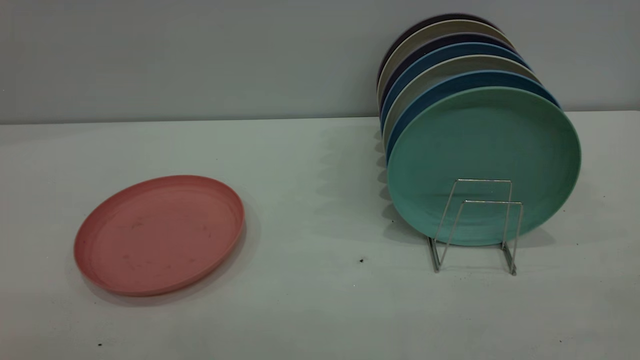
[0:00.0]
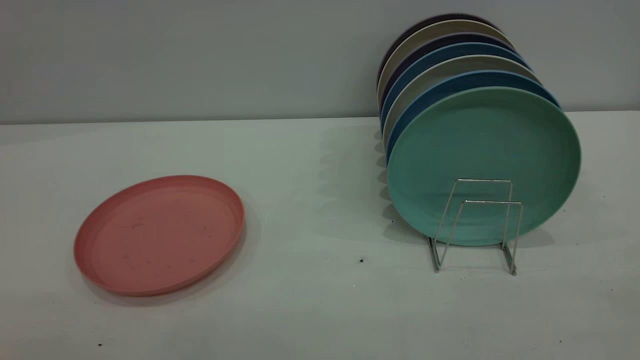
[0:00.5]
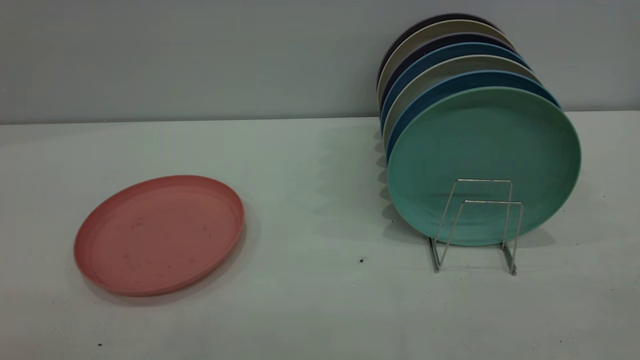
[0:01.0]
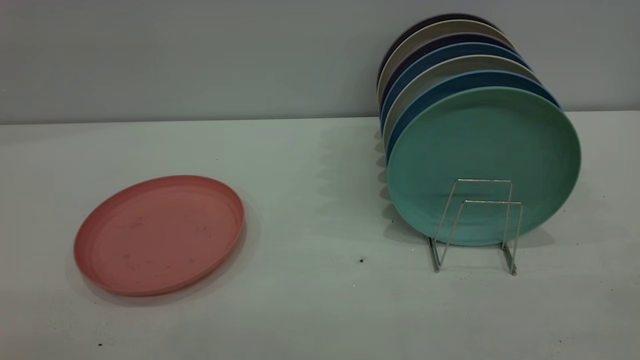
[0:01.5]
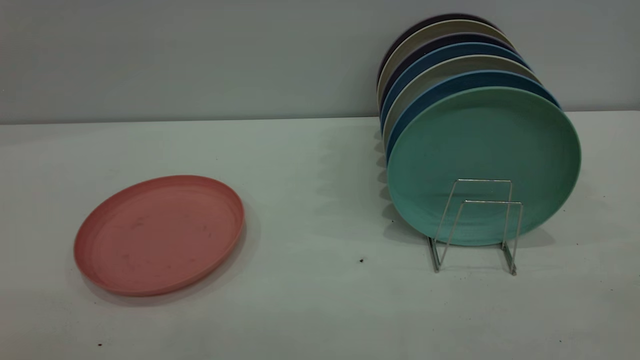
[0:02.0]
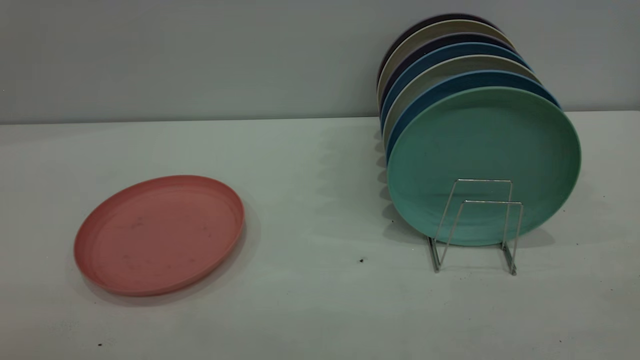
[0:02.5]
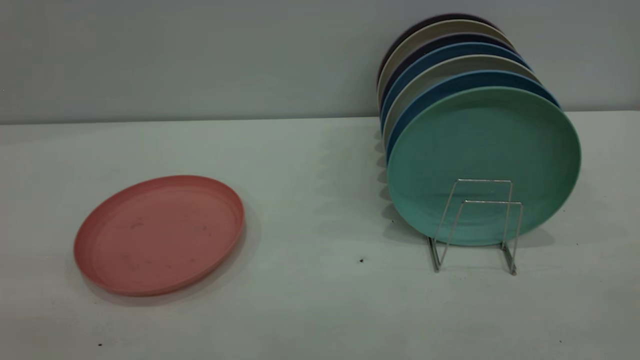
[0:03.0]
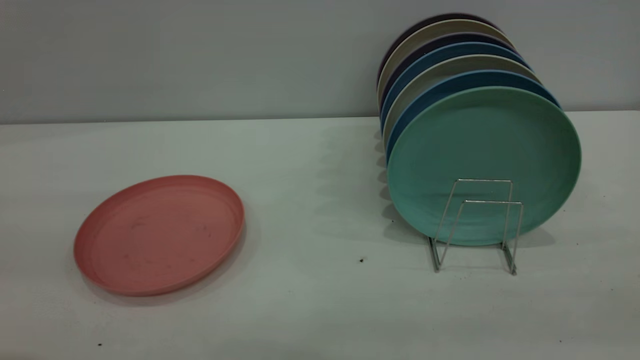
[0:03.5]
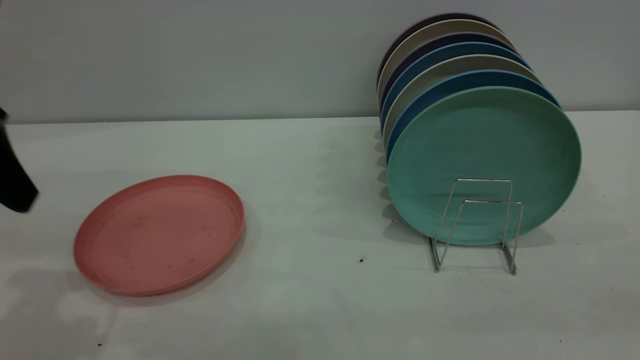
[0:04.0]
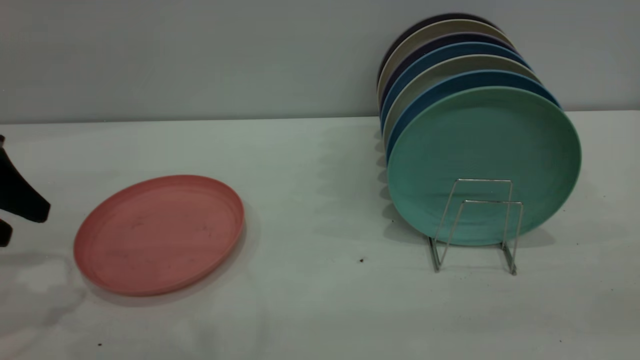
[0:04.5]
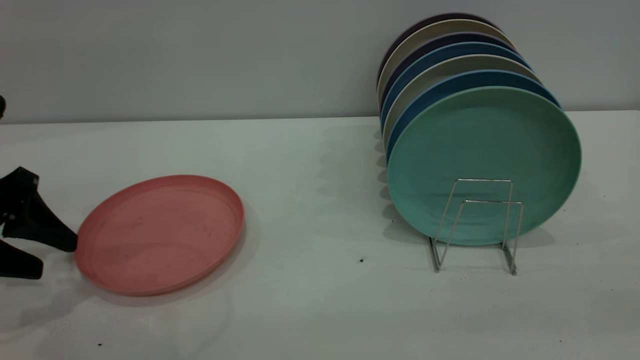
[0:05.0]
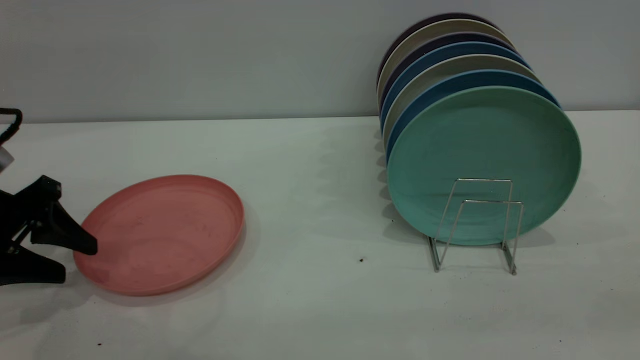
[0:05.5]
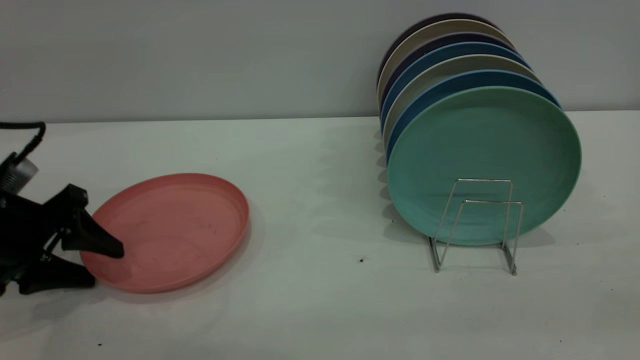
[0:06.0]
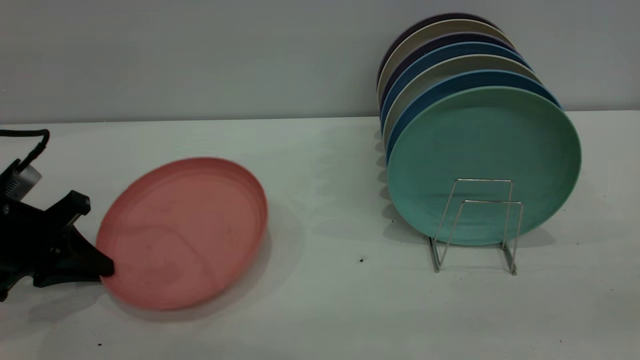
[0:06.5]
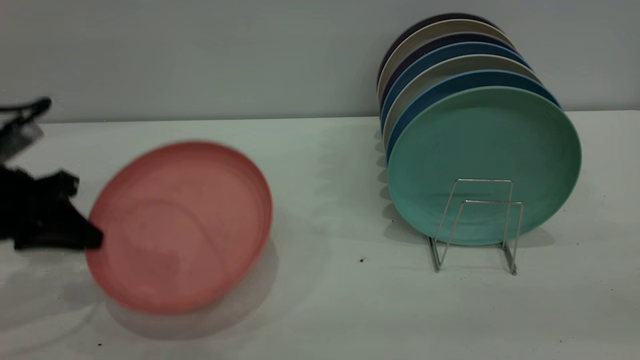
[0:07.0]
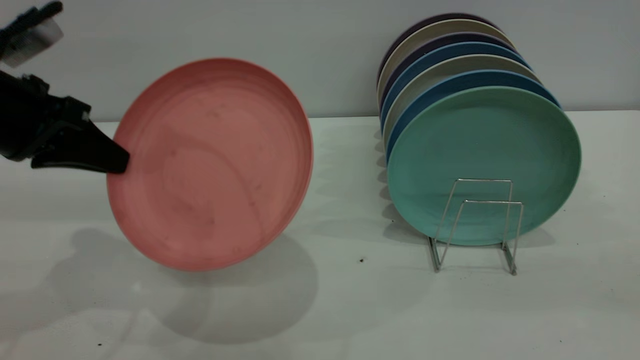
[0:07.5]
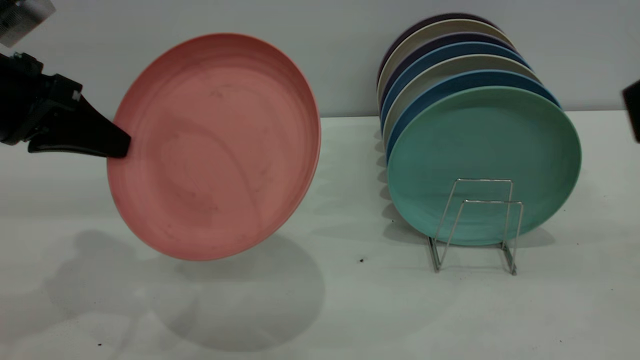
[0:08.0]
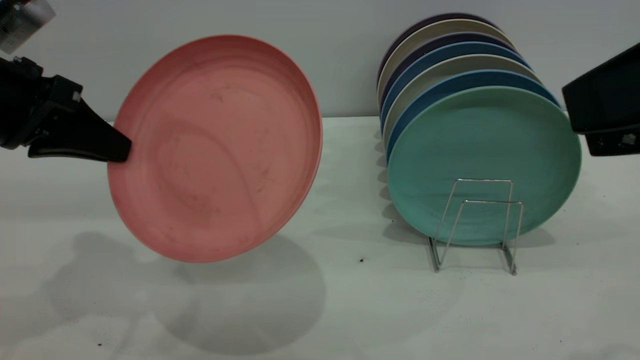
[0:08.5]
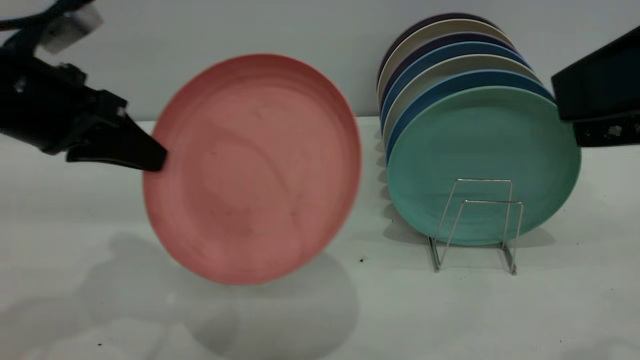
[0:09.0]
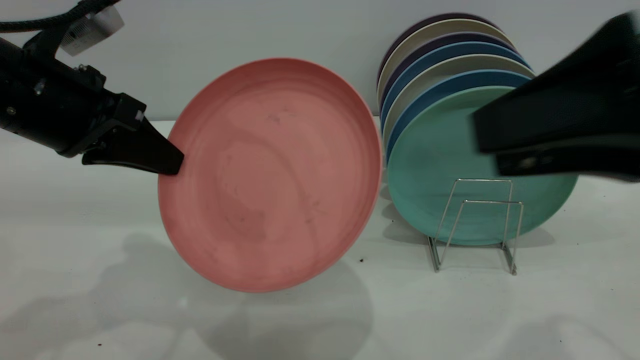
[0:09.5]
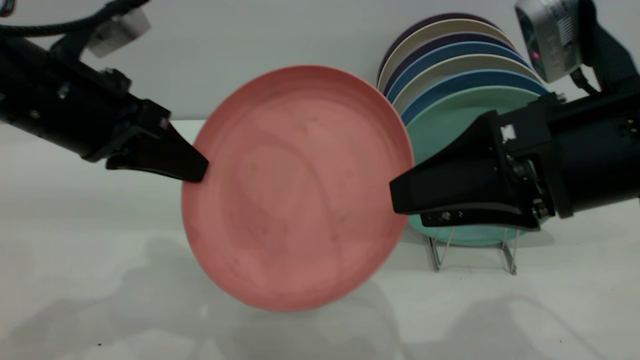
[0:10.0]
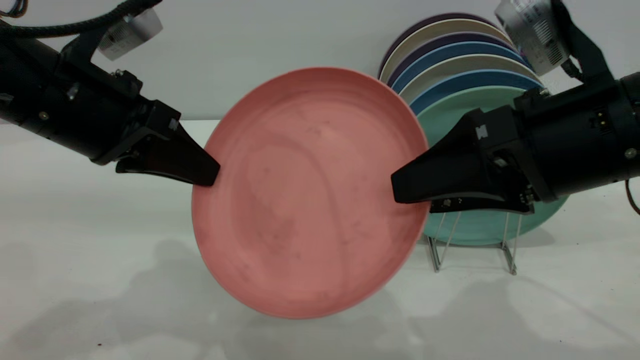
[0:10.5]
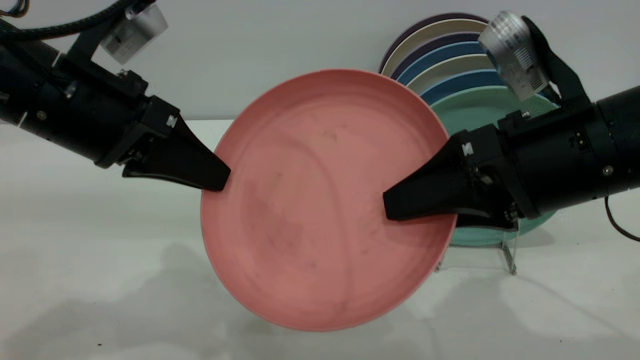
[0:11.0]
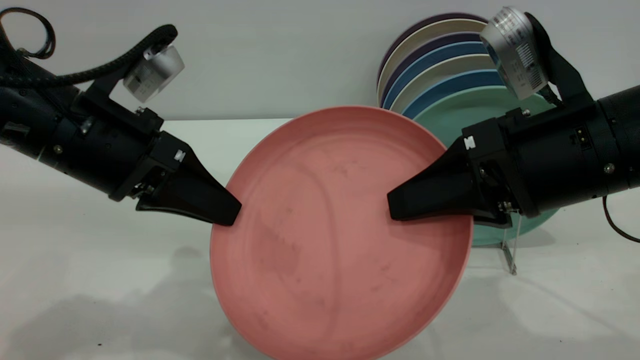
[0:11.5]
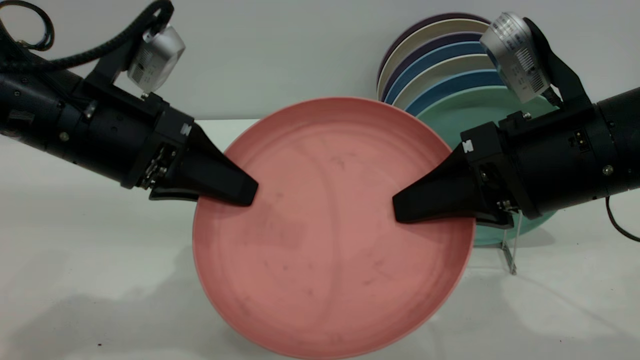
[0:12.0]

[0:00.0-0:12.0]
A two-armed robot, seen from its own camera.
Task of the whole recording: put the plate on the plate rack.
Step, 0:00.0 to 0:06.5: Pick up the plate with the left gripper.
0:00.0 to 0:02.0: The two grippers keep their place.
0:02.0 to 0:04.0: The left gripper goes approximately 30 cm forward.
0:04.0 to 0:06.0: The left gripper goes some 15 cm downward.
0:06.0 to 0:08.0: The left gripper travels upward by approximately 15 cm, and closes its fingers. The right gripper heads forward, covering some 10 cm.
0:08.0 to 0:10.0: The right gripper shifts roughly 15 cm downward, forward and to the left, while the left gripper is displaced to the right by roughly 5 cm.
0:10.0 to 0:12.0: The right gripper closes up.

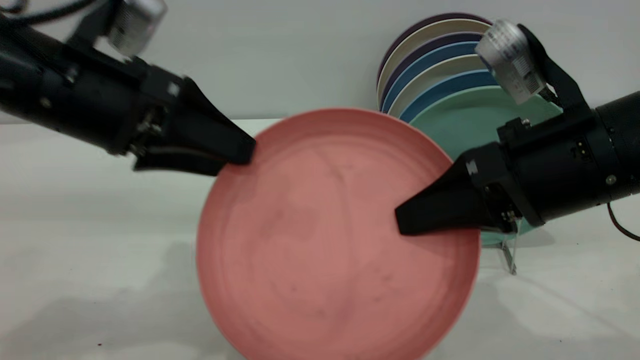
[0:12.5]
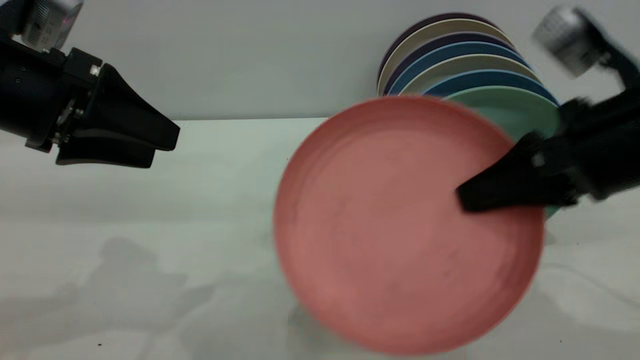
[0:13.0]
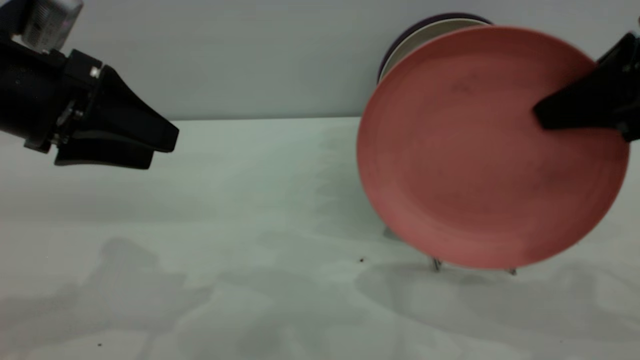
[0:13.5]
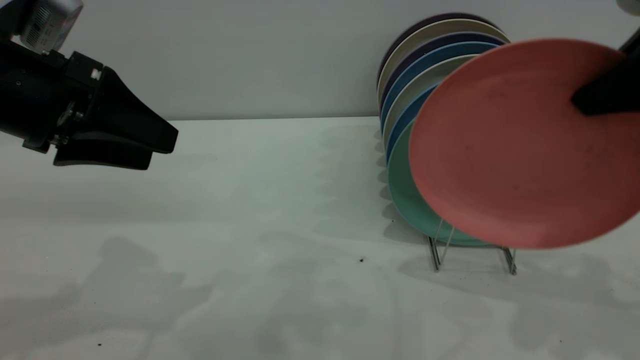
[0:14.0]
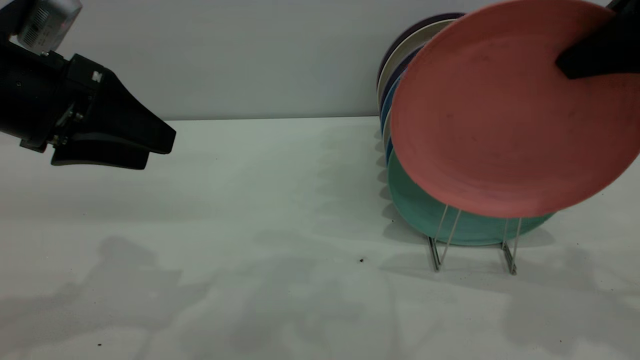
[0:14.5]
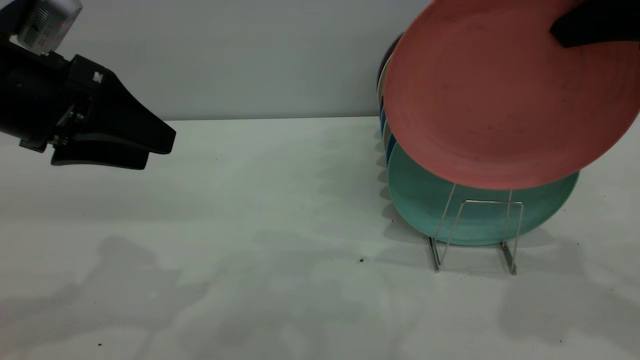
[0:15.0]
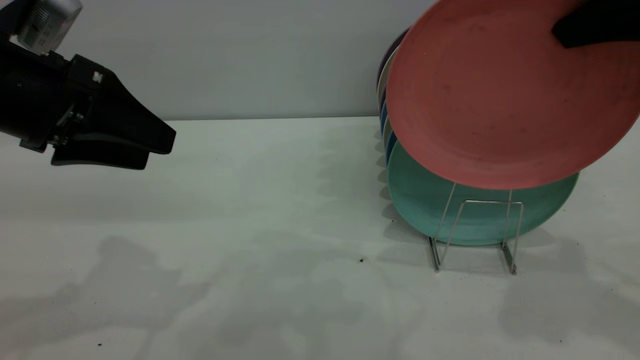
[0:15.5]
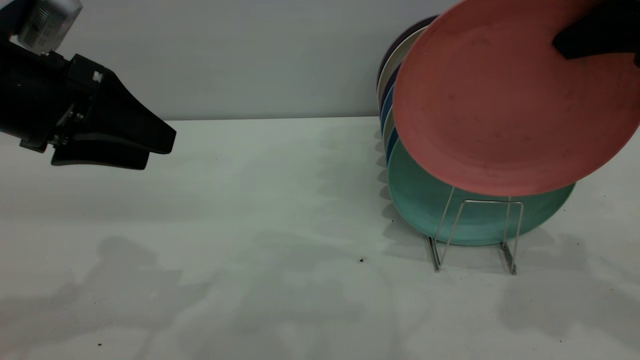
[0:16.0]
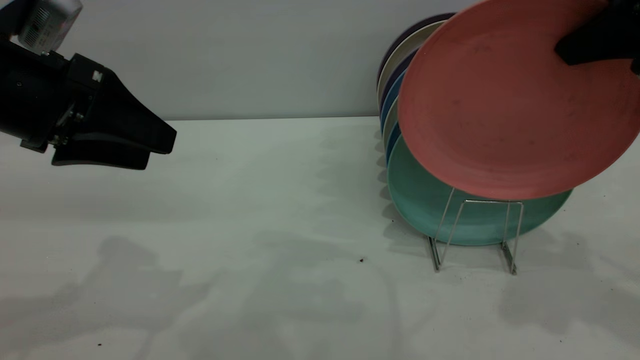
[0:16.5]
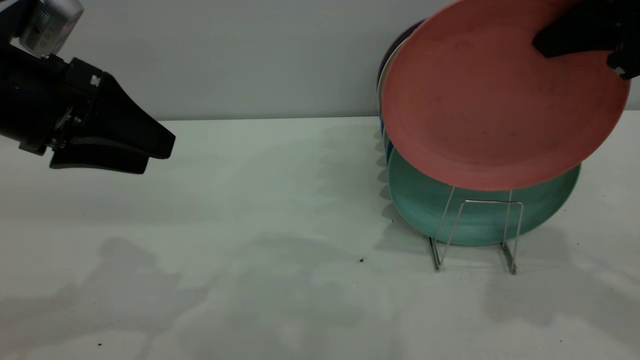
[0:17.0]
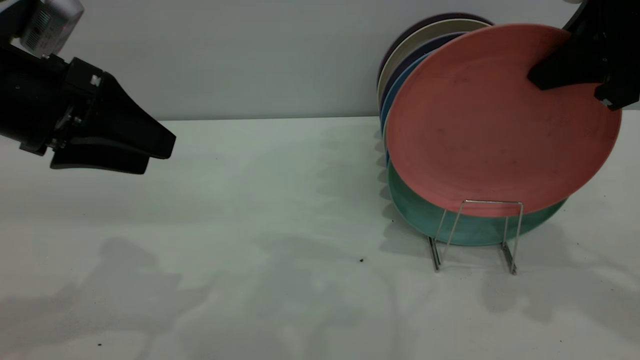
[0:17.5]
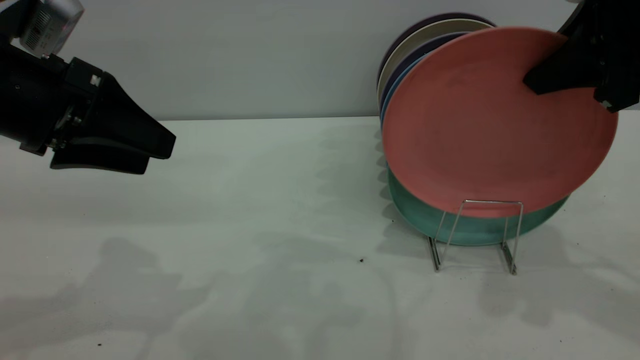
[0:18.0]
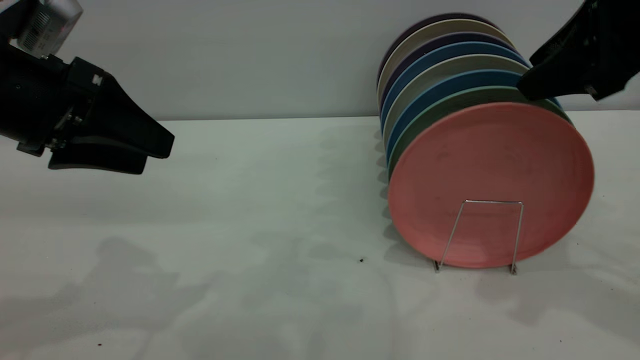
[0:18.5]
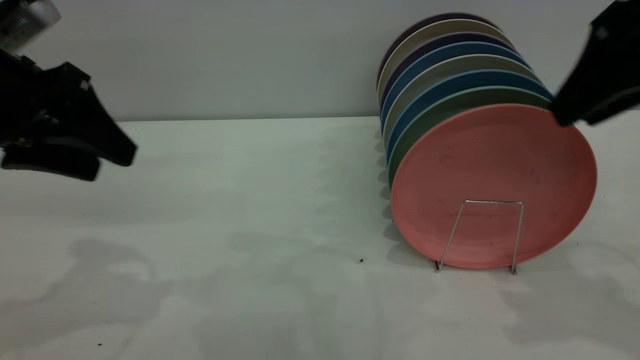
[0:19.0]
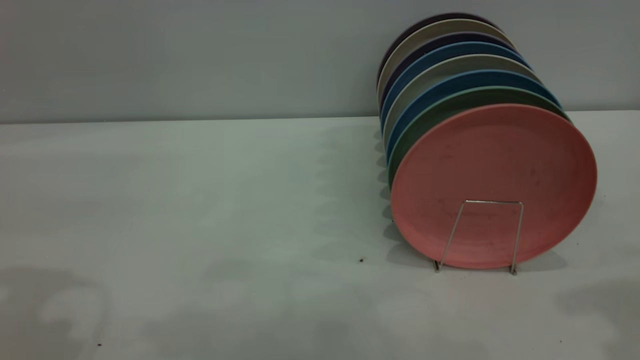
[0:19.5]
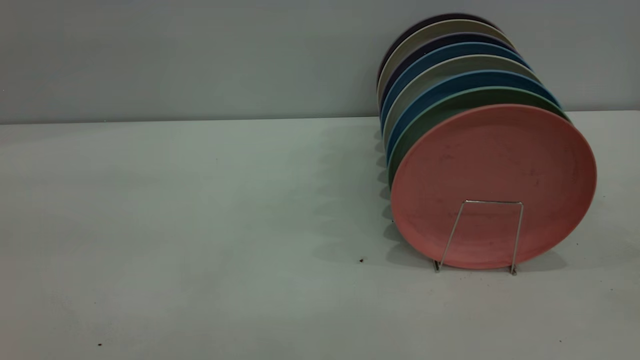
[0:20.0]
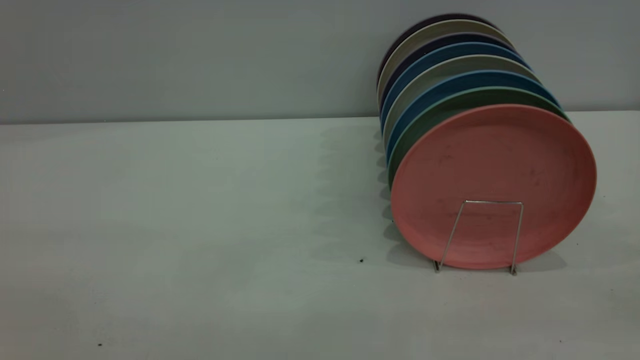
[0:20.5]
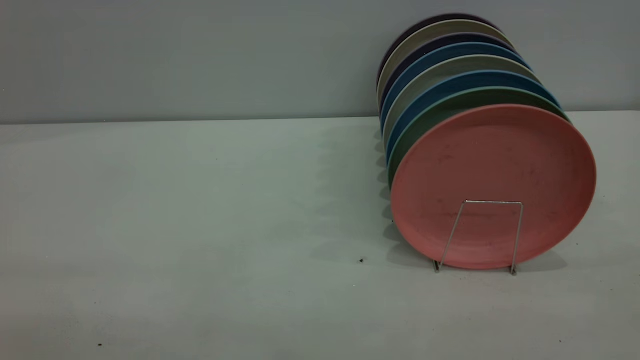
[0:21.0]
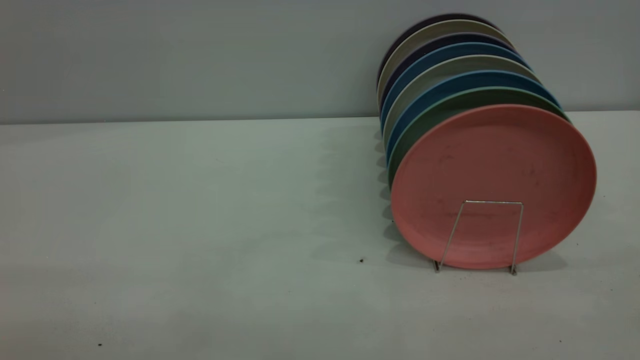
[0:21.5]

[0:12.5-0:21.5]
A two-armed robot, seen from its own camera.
Task of the whole recording: put the plate on the plate rack.
Step, 0:13.0 to 0:19.0: Place the plate on the shelf.
0:12.5 to 0:14.5: The left gripper travels to the left by approximately 5 cm. Meanwhile the right gripper moves upward and to the right, roughly 15 cm.
0:14.5 to 0:17.0: The grippers make only small movements.
0:17.0 to 0:19.5: The left gripper travels upward by approximately 10 cm; the right gripper heads backward, covering some 10 cm, and opens.
